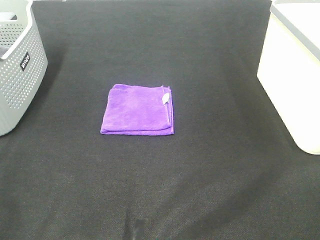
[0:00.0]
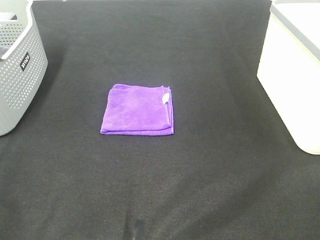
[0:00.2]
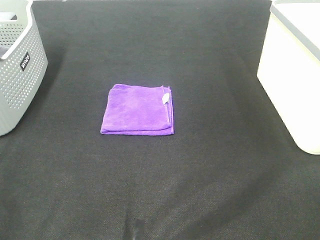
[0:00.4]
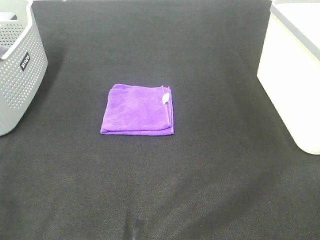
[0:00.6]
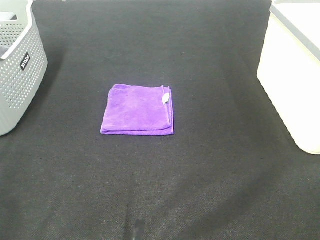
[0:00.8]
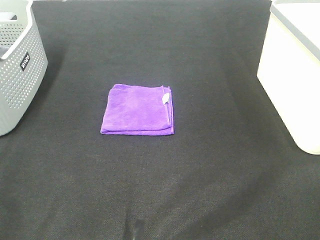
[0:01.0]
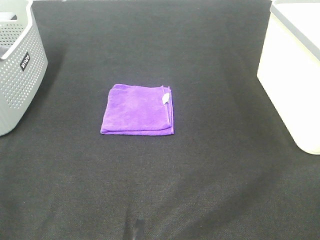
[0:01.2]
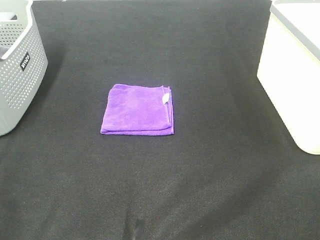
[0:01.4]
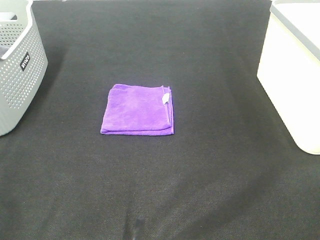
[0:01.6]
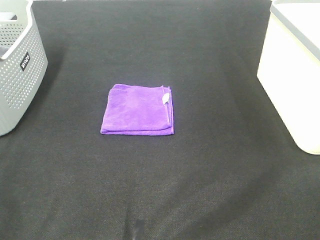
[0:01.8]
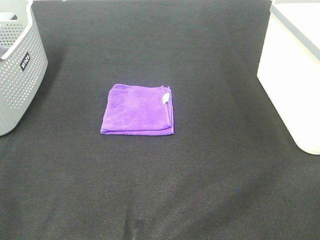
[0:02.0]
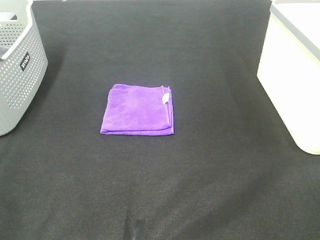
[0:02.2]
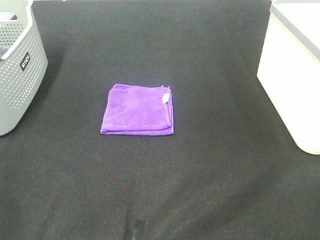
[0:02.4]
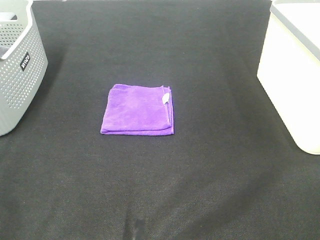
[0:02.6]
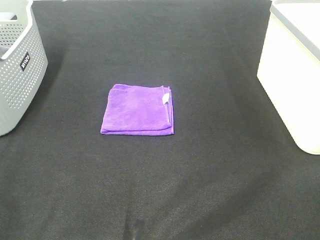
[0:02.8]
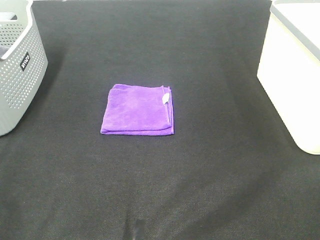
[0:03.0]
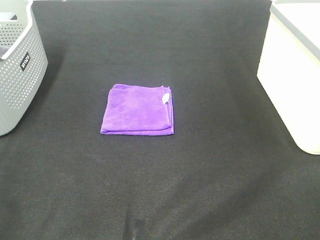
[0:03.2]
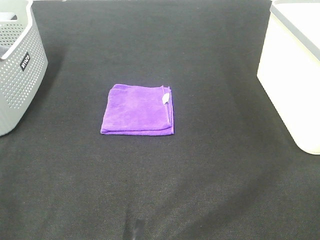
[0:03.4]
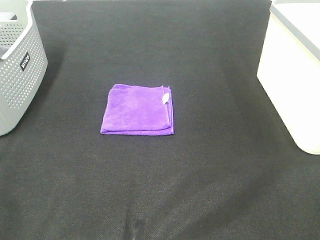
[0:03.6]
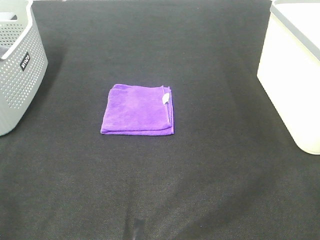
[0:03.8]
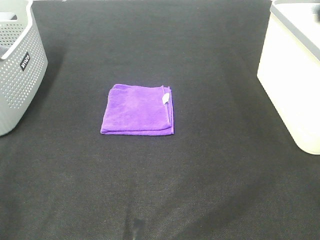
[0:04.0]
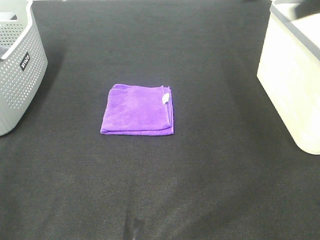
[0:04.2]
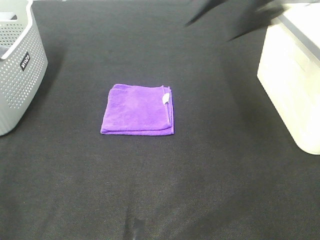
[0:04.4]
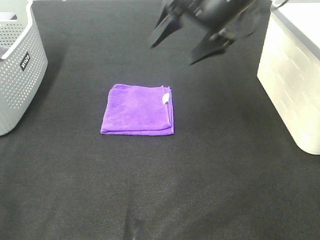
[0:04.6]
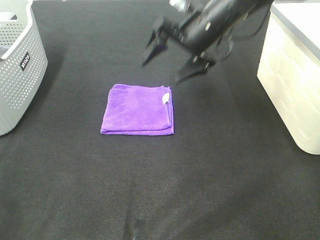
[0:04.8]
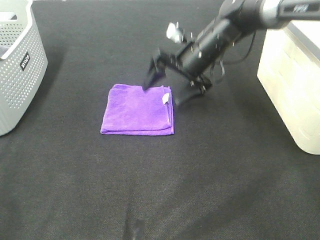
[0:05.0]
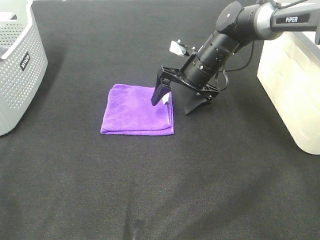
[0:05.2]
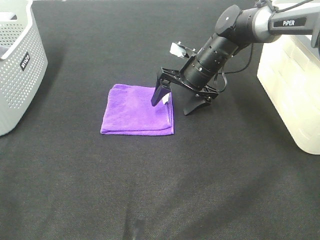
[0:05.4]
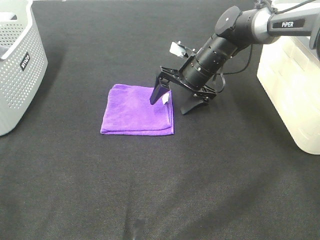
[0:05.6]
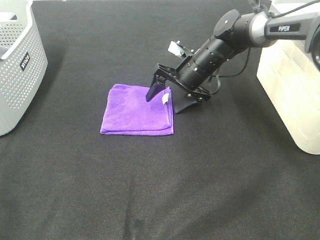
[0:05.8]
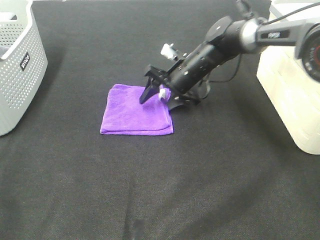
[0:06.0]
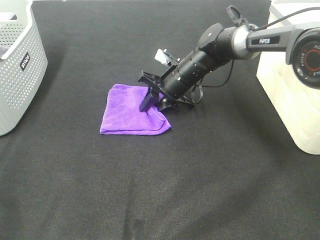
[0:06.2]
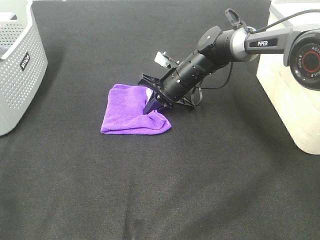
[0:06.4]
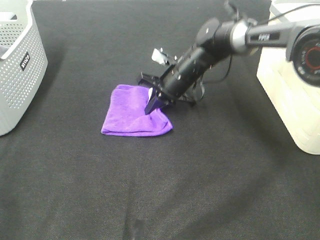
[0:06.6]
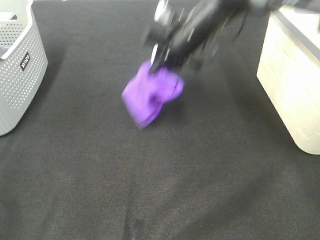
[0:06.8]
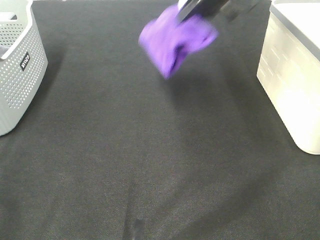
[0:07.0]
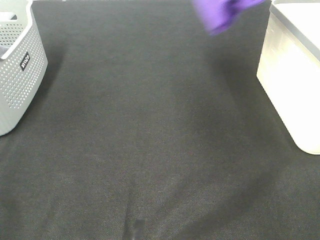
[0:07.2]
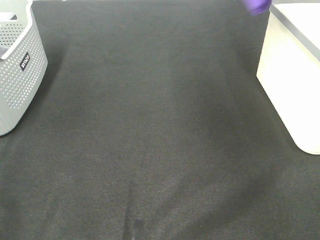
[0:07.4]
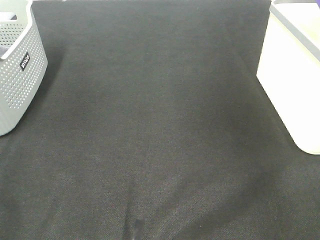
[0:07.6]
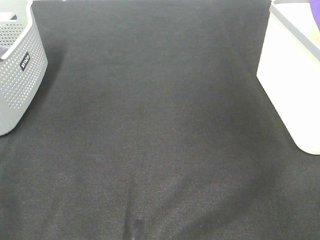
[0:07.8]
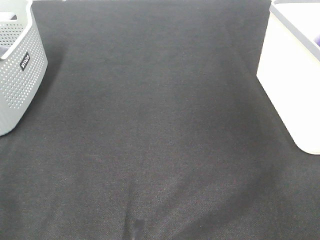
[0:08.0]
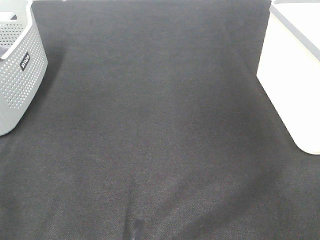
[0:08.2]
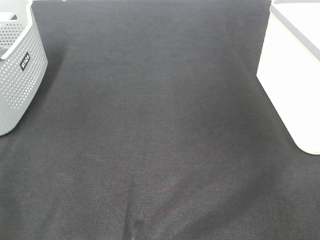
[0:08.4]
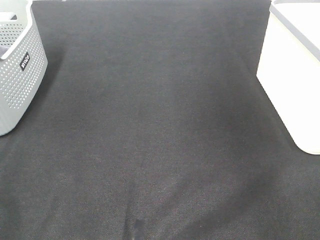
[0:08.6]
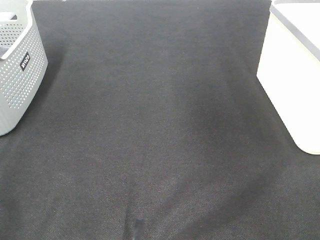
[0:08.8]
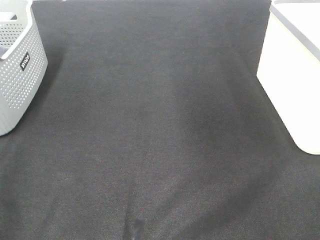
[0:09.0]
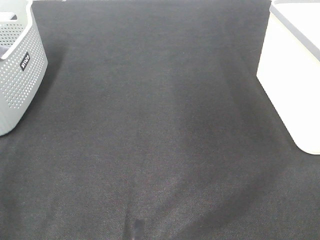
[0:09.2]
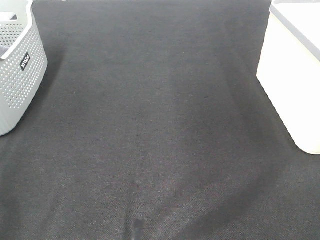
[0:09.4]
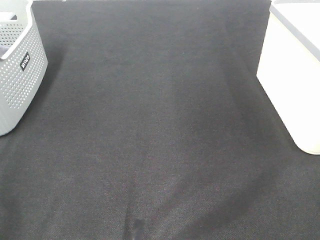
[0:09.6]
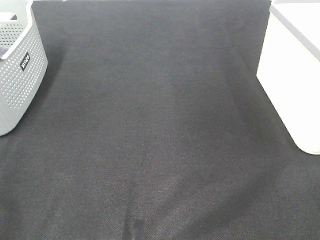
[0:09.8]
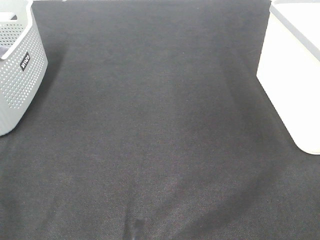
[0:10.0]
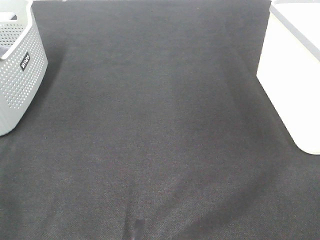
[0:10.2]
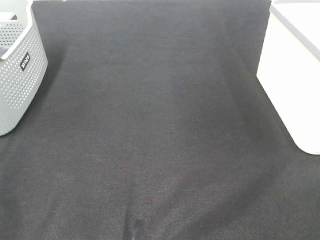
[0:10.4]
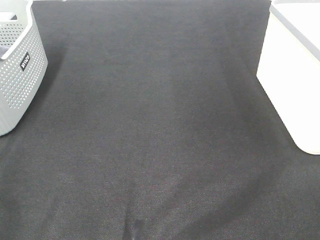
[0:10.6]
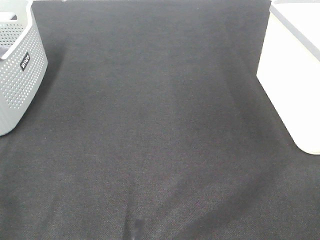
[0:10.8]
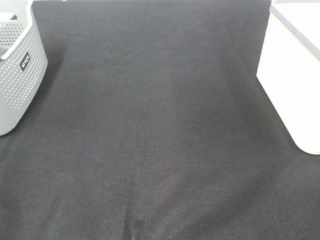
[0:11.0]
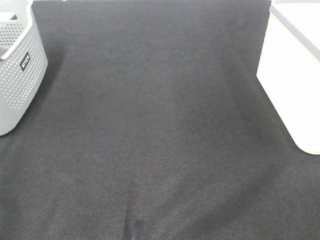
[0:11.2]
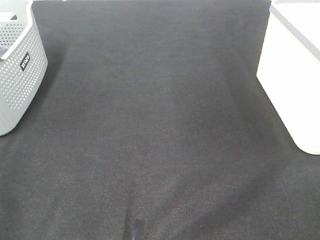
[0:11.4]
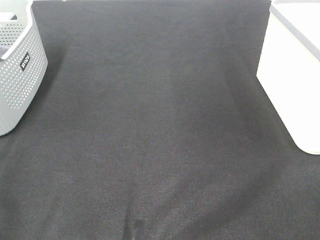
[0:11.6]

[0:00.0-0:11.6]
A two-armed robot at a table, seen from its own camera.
Step, 0:00.0 to 0:06.2: Right hand: grab the folded purple towel.
Step, 0:06.4 to 0:08.0: Right hand: place the purple towel in right basket.
0:00.0 to 0:02.8: Both grippers stay put.
0:02.8 to 0:04.4: The right gripper moves forward, some 35 cm.
0:04.4 to 0:05.8: The right gripper shifts about 25 cm downward and forward.
0:05.8 to 0:07.2: The right gripper travels upward and to the right by roughly 35 cm, and closes up.
0:07.2 to 0:08.8: The right gripper travels to the right and back again, some 15 cm each way, and opens up.

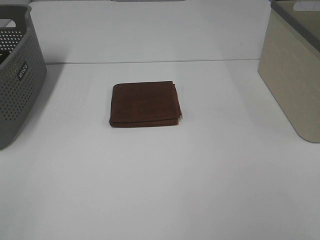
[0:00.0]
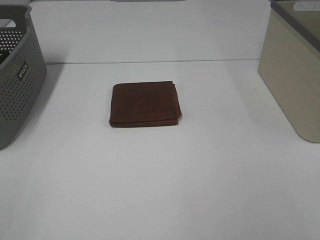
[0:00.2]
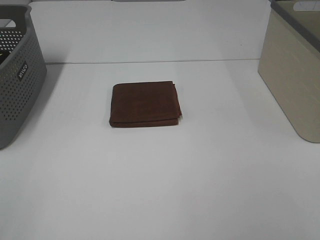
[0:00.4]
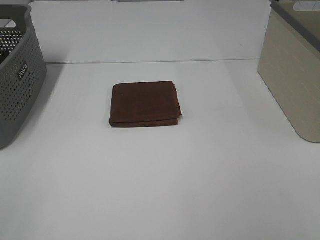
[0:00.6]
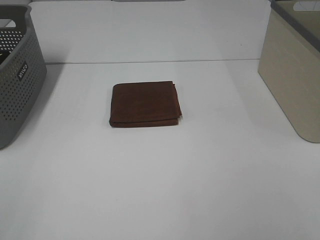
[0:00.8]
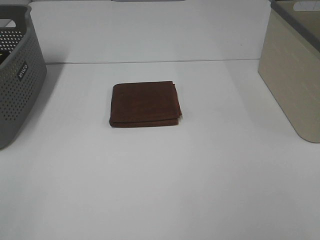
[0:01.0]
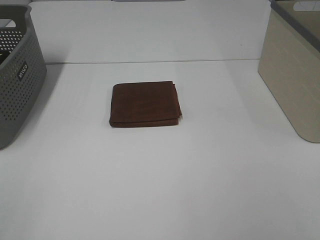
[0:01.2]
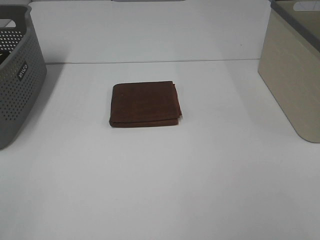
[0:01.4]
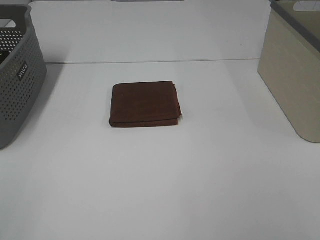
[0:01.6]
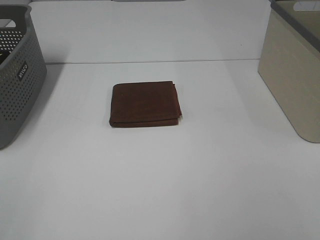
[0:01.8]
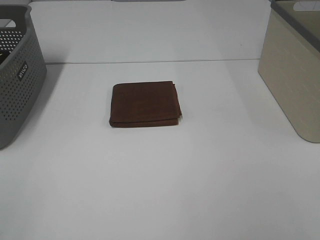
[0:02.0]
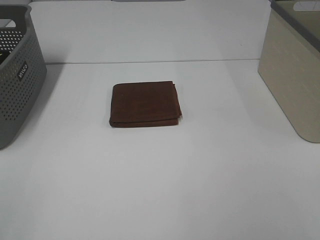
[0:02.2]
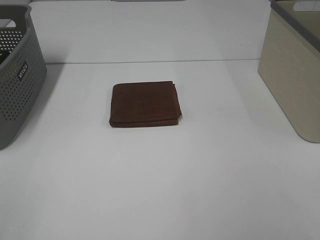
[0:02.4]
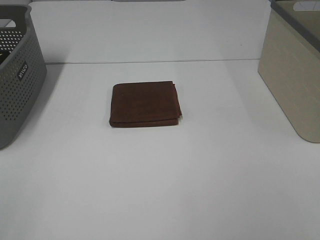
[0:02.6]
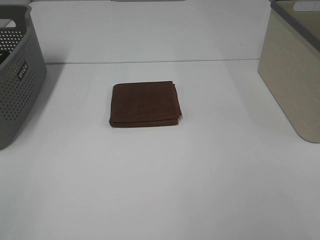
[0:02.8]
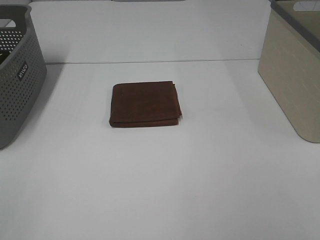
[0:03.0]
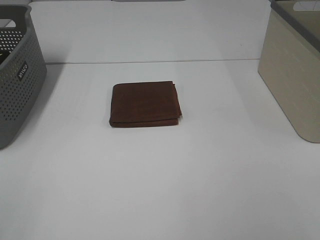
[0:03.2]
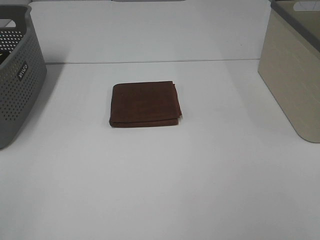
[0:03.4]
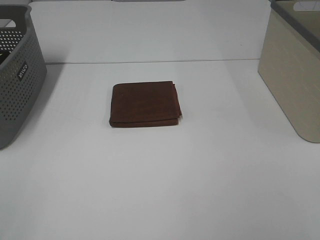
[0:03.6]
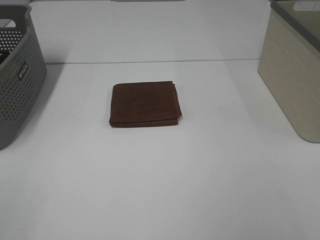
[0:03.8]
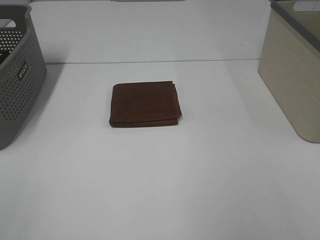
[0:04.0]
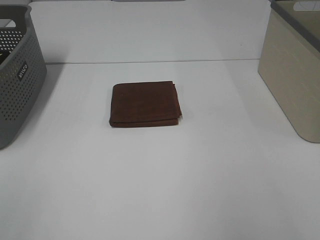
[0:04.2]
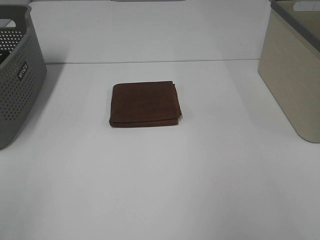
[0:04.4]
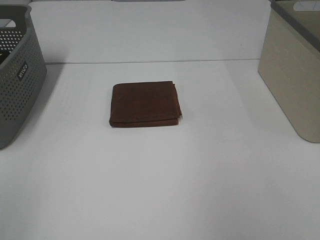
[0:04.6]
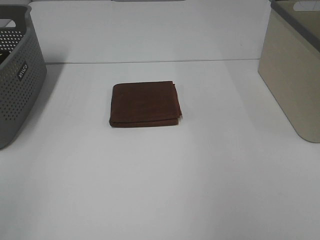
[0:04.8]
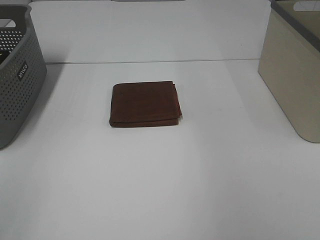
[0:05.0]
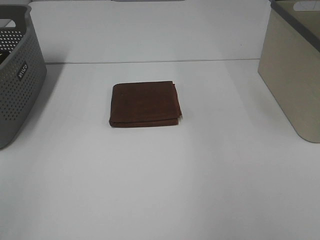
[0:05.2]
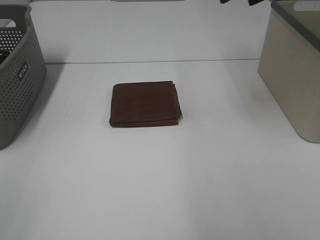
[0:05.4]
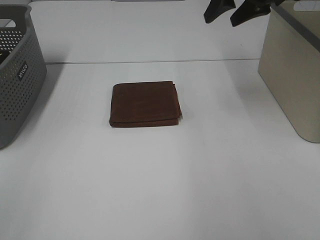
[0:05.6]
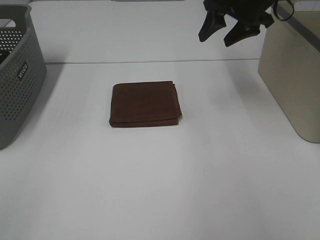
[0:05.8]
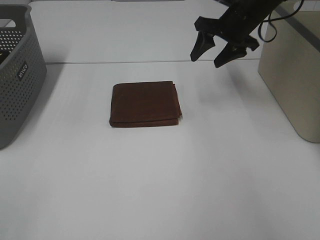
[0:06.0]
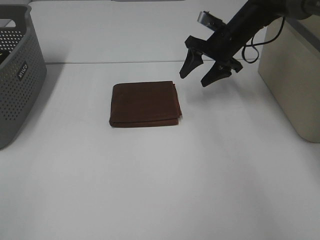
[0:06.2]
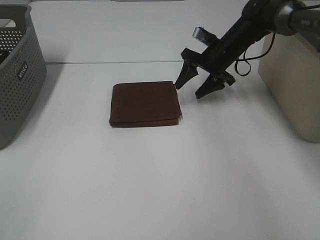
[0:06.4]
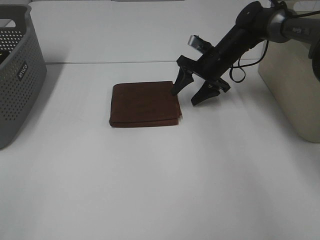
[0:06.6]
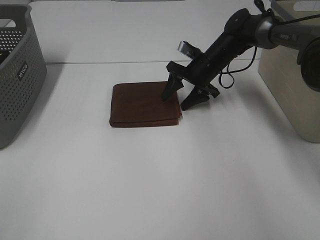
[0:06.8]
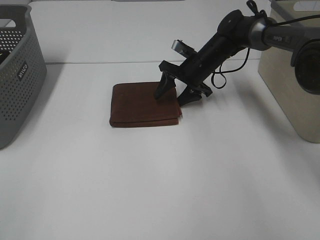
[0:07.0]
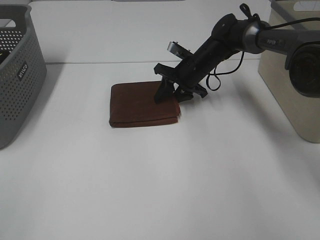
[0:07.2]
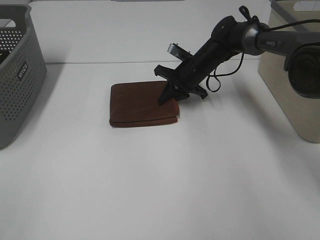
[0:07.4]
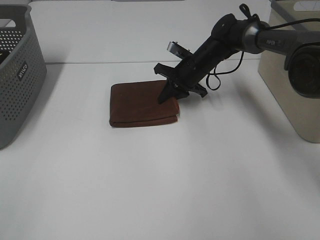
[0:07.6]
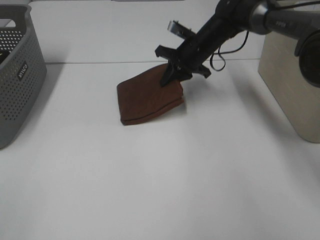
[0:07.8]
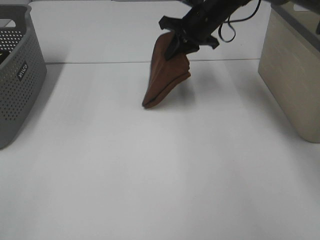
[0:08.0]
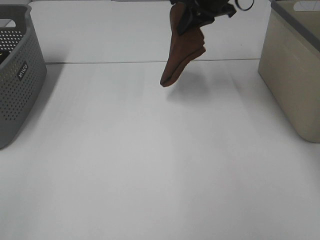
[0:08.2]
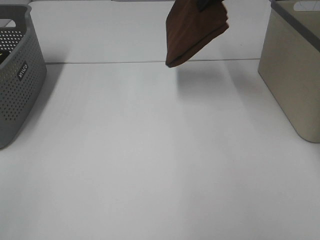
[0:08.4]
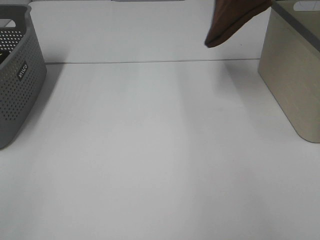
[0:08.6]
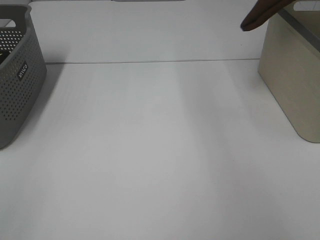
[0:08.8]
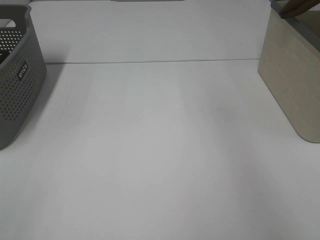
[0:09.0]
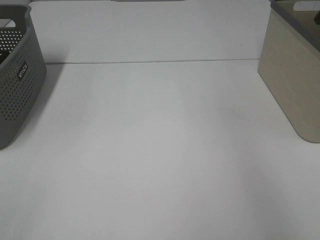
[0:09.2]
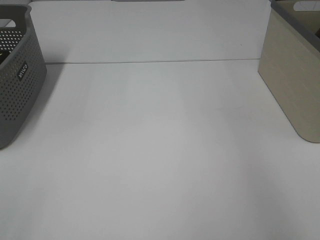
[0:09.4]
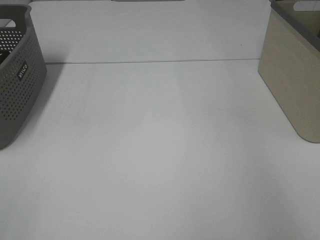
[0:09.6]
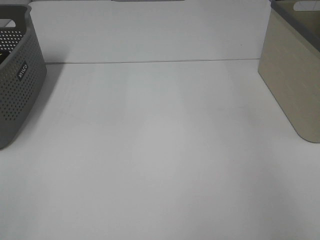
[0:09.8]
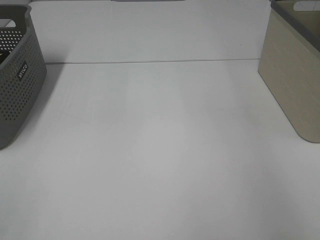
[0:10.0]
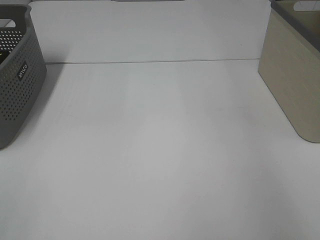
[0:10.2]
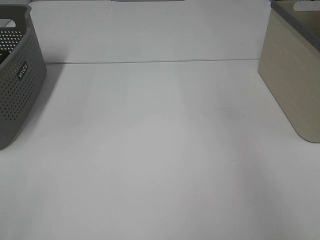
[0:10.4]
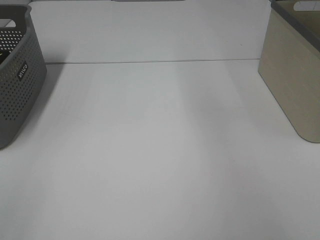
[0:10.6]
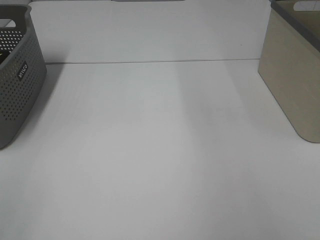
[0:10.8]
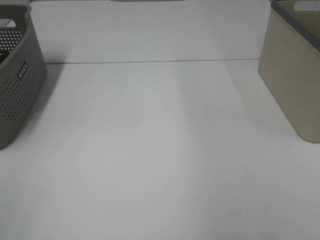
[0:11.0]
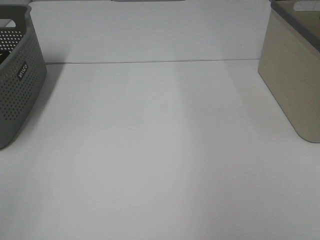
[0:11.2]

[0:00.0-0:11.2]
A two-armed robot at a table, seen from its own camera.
Step, 0:00.0 to 0:07.4: Right hand: grab the folded brown towel.
Step, 0:07.6 to 0:10.0: Right hand: place the brown towel in right basket.
0:00.0 to 0:03.2: Both grippers stay about where they are.
0:04.8 to 0:06.4: The right gripper travels downward, forward and to the left by approximately 35 cm.
0:06.4 to 0:08.0: The right gripper moves upward and to the left, roughly 10 cm, and closes.
0:08.0 to 0:09.6: The right gripper goes about 30 cm to the right.
